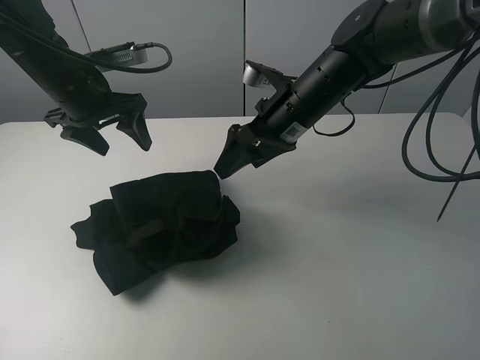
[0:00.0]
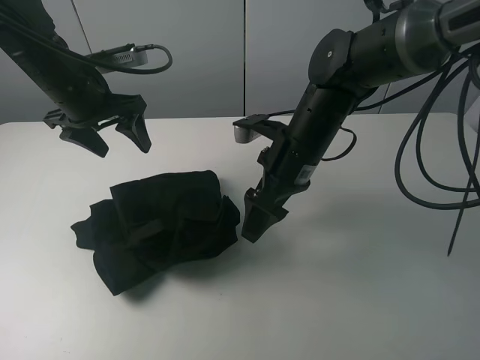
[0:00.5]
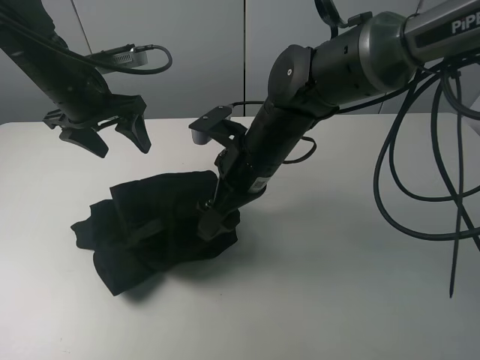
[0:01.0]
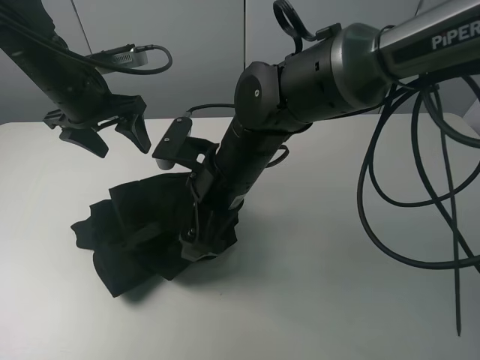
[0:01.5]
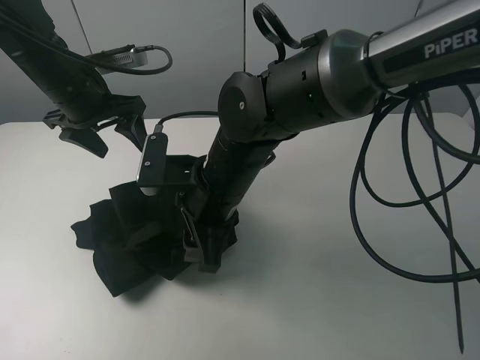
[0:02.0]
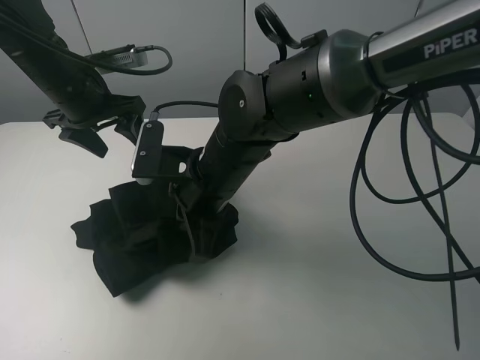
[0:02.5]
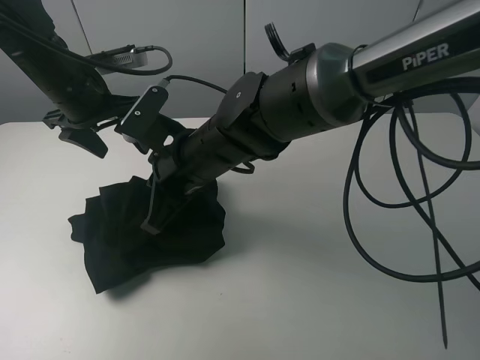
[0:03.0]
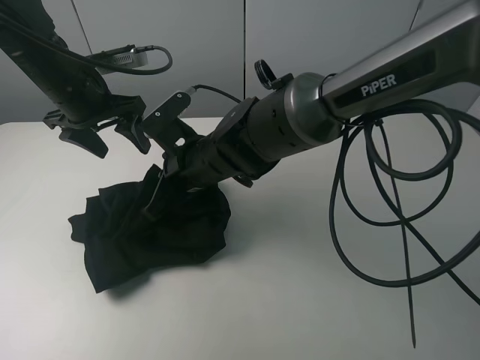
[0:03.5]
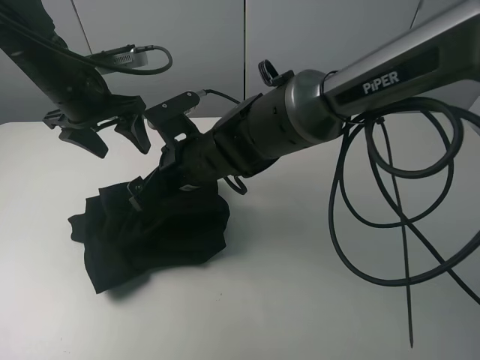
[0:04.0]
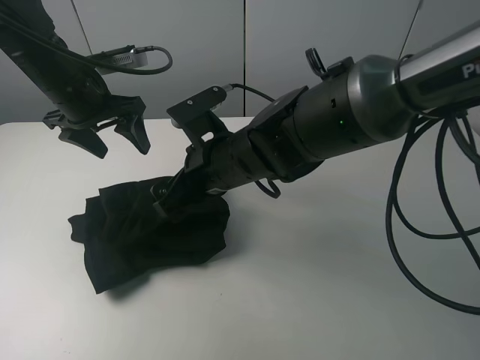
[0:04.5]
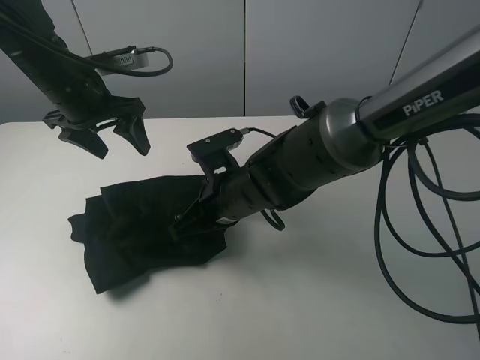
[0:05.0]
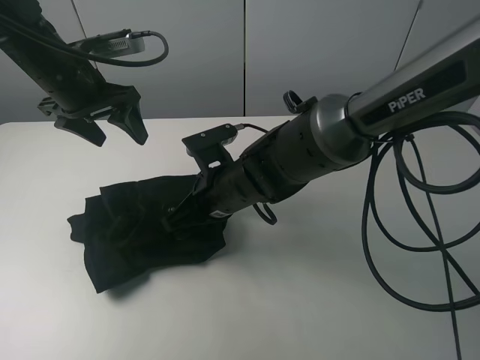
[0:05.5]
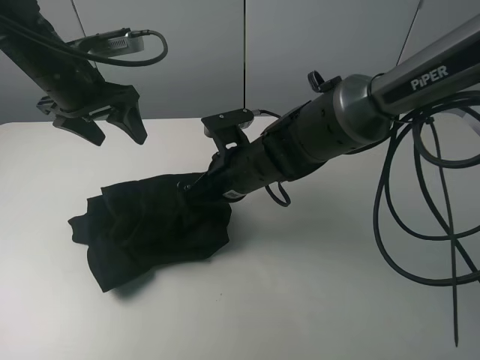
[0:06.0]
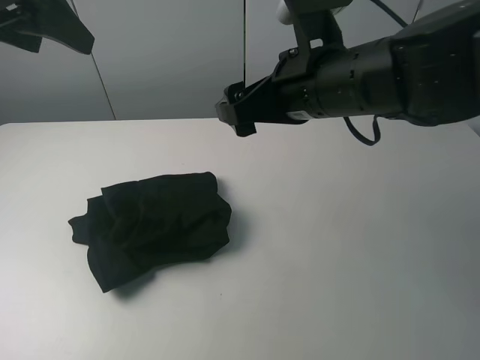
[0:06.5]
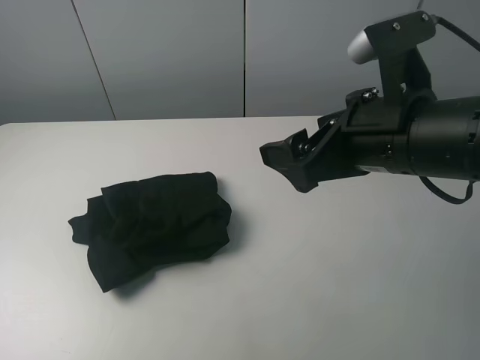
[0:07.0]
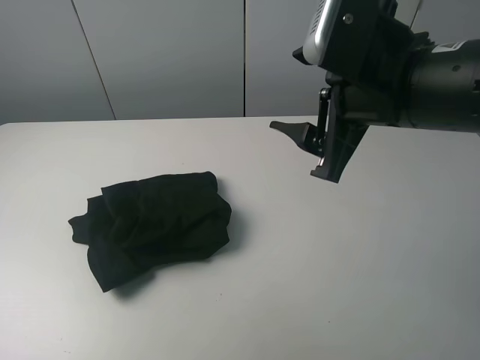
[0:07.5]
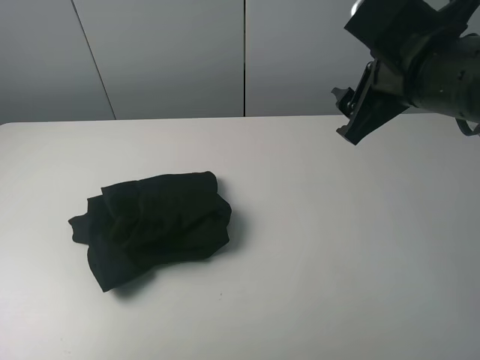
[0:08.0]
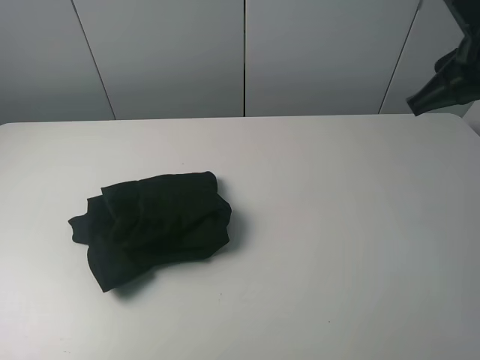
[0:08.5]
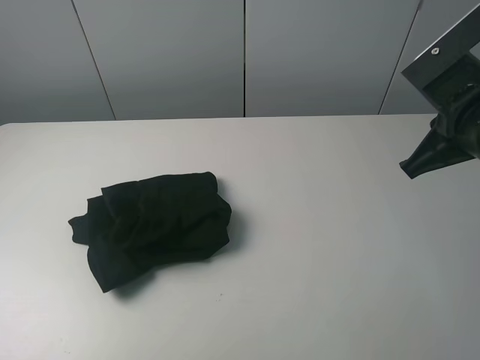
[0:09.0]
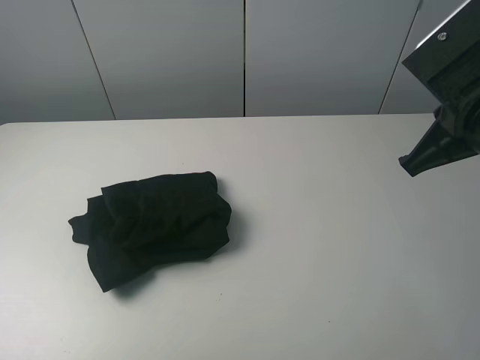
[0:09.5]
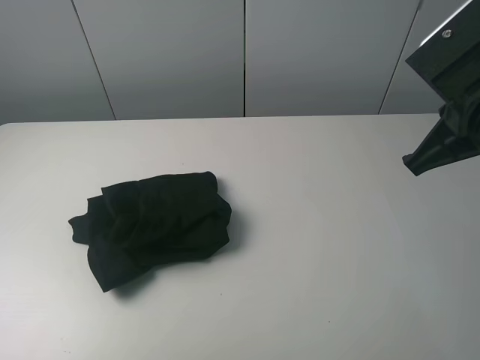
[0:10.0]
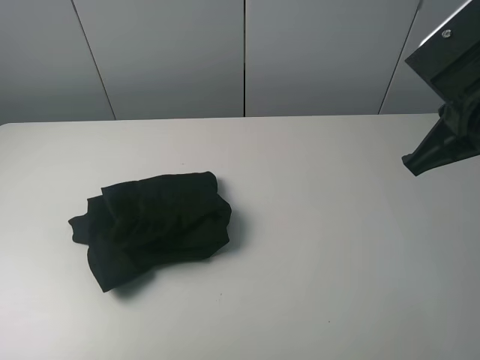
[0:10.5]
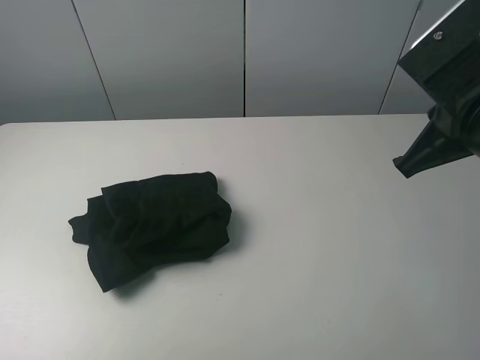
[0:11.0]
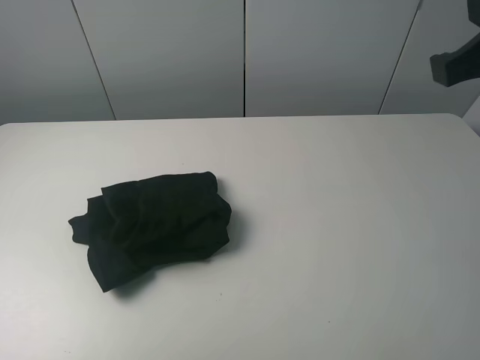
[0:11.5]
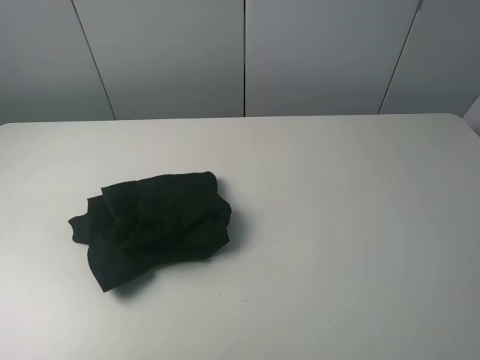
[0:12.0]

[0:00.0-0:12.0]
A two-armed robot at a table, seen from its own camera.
Task of the whole recording: fold the clothes on the table.
Step, 0:00.0 to 0:06.0: Fold the black T-shirt from right to left with right gripper.
0:00.0 to 0:02.0: The right gripper travels to the left and backward by some 15 cm, and closes up.
0:02.0 to 0:04.0: The right gripper ends up about 5 cm from where it was, and opens.
0:04.0 to 0:06.0: The right gripper travels to the right by approximately 5 cm.
0:06.0 to 0:08.0: The left gripper travels backward by approximately 30 cm. Meanwhile the right gripper shifts roughly 20 cm to the right and upward.
0:08.0 to 0:10.0: The right gripper shifts by some 5 cm, and closes its fingers.
0:10.0 to 0:12.0: The right gripper heads upward and backward, covering approximately 10 cm.

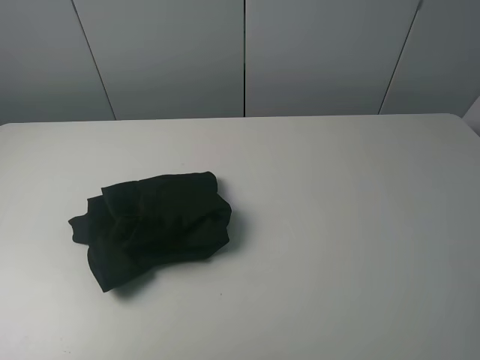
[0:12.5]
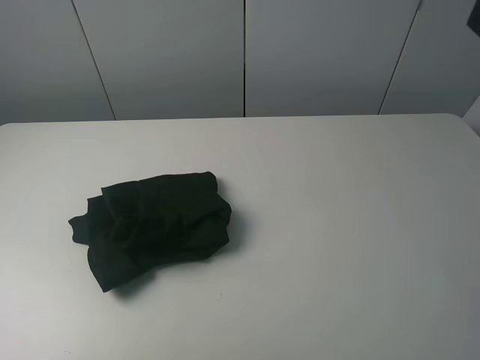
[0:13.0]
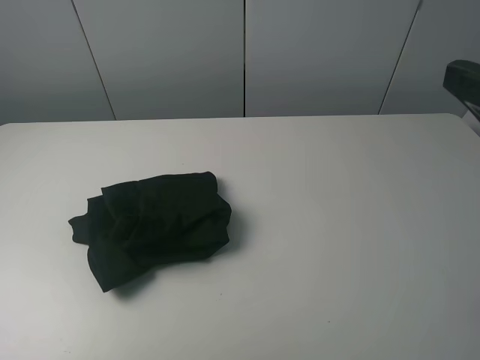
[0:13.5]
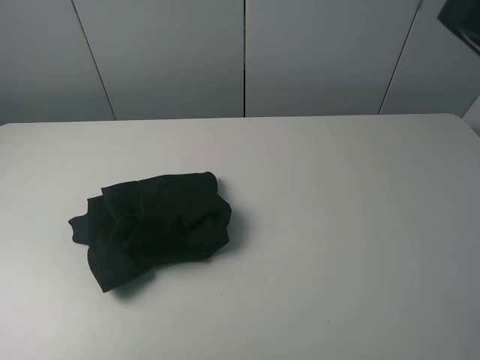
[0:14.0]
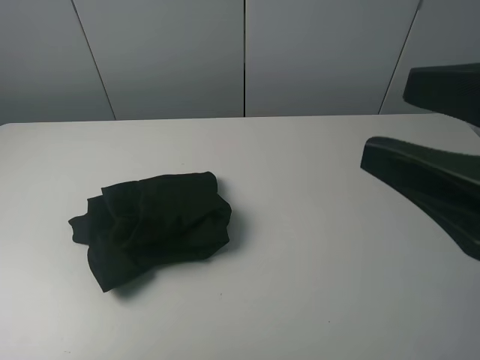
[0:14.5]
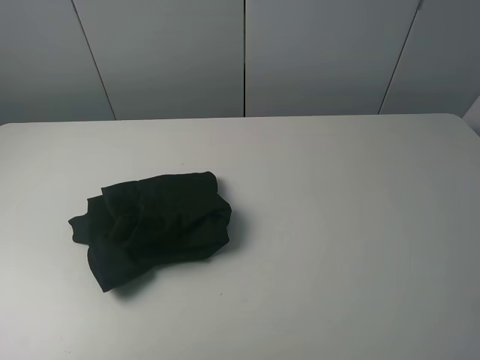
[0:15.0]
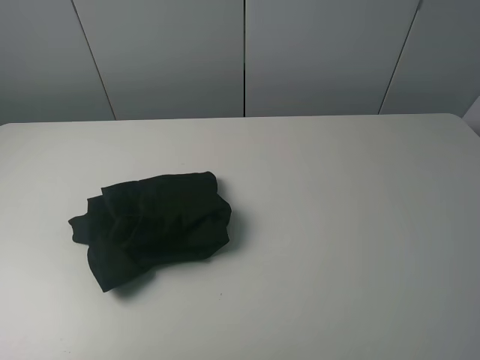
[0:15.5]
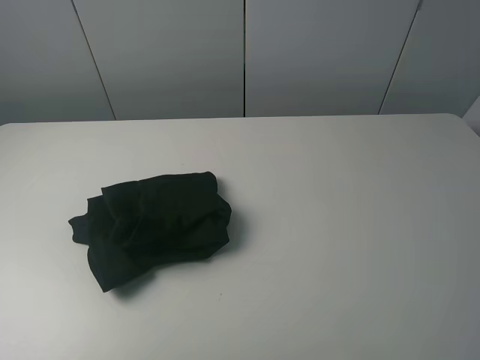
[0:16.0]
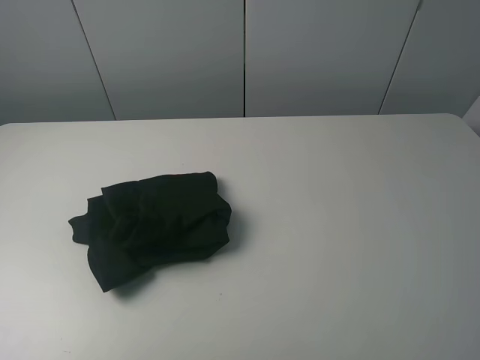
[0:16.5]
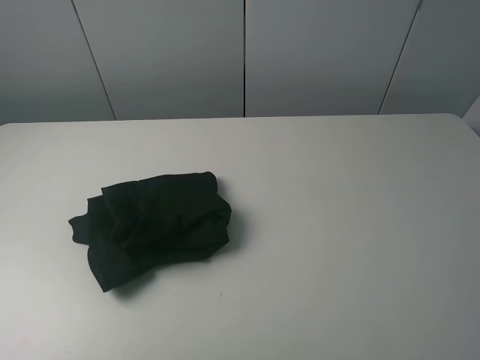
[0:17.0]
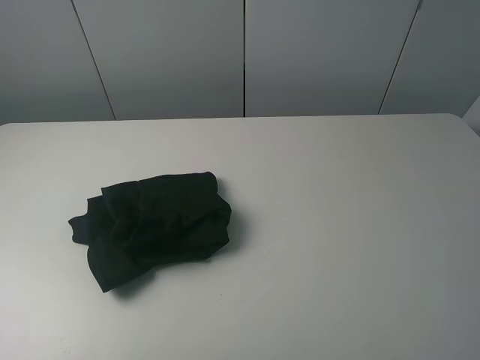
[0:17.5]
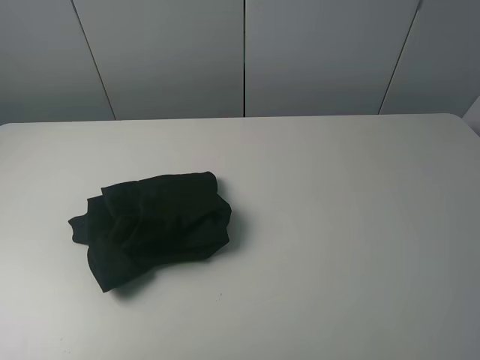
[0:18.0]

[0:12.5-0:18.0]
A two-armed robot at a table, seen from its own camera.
Task of the whole recording: fold the clothes on the table.
0:12.5 to 0:14.5: The right gripper ends up about 5 cm from where it was, and opens.
0:14.5 to 0:16.0: The right gripper shifts some 10 cm to the right and backward.
